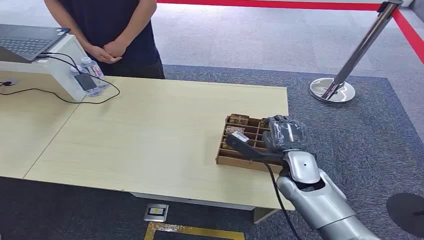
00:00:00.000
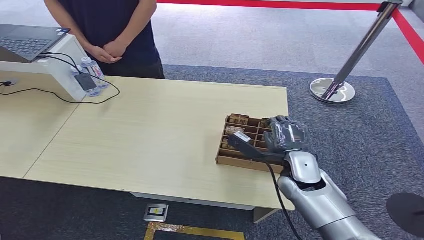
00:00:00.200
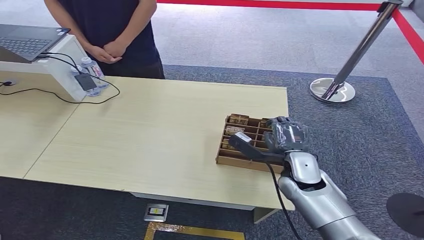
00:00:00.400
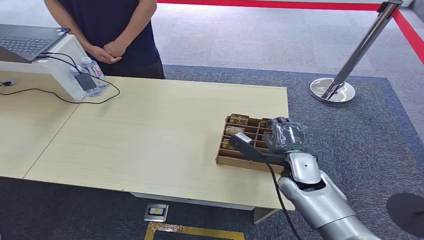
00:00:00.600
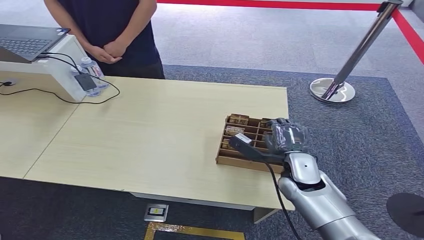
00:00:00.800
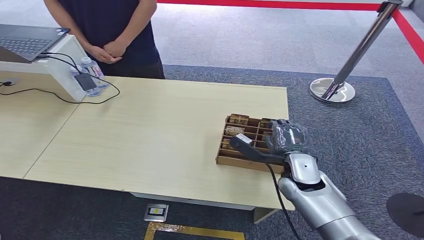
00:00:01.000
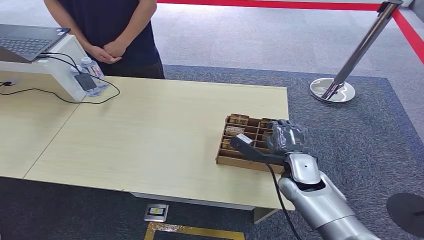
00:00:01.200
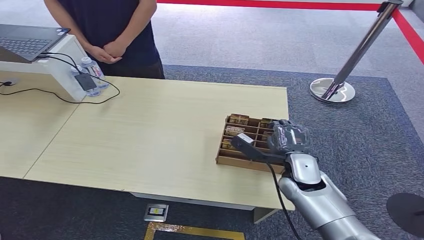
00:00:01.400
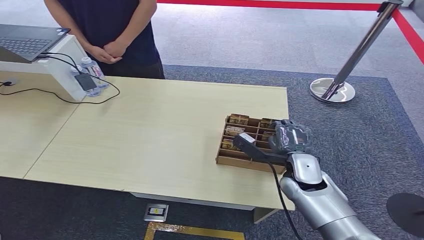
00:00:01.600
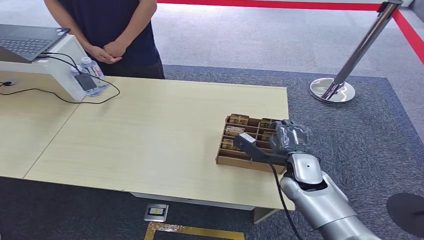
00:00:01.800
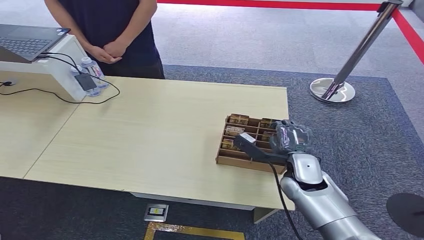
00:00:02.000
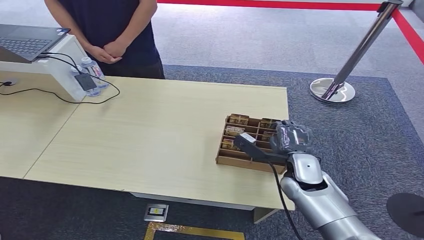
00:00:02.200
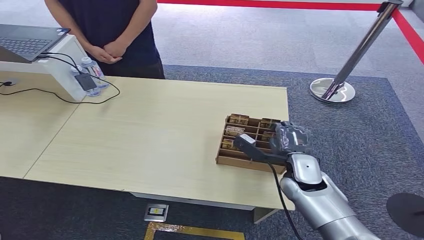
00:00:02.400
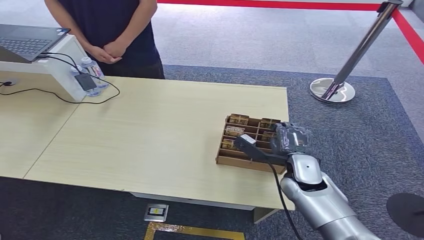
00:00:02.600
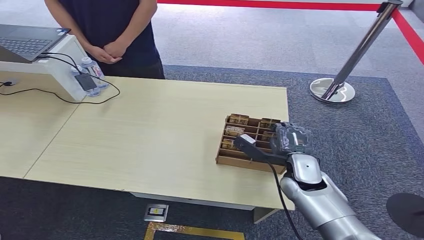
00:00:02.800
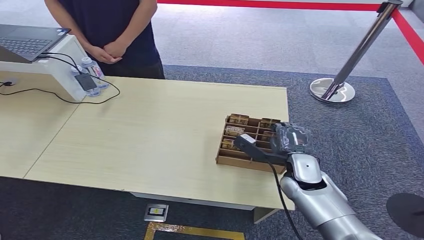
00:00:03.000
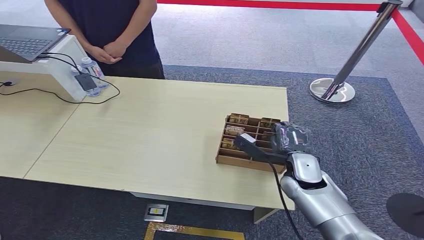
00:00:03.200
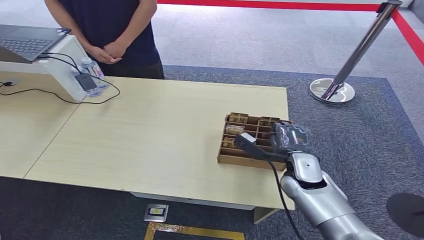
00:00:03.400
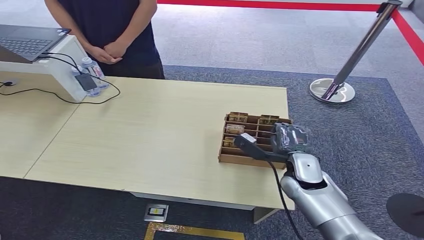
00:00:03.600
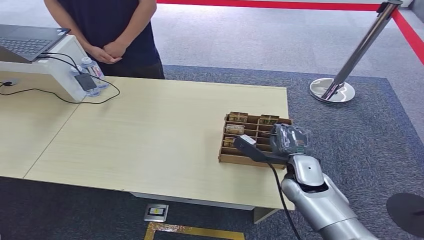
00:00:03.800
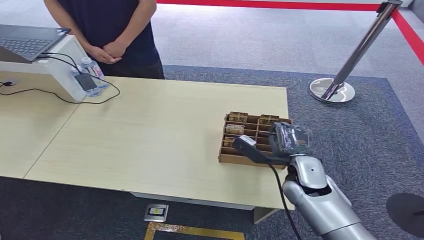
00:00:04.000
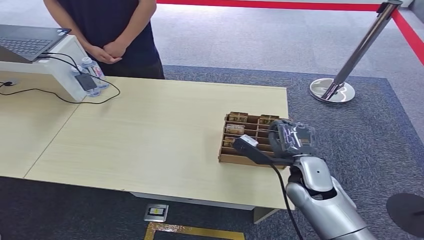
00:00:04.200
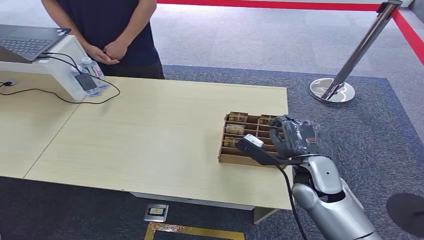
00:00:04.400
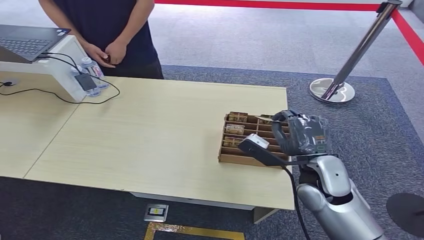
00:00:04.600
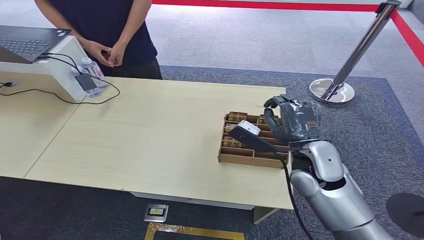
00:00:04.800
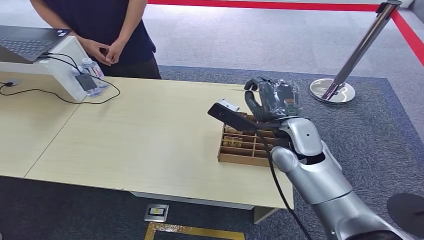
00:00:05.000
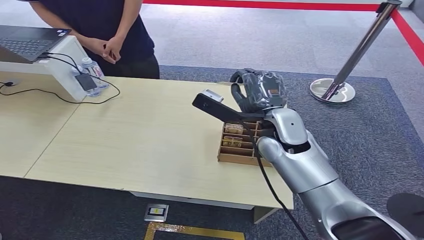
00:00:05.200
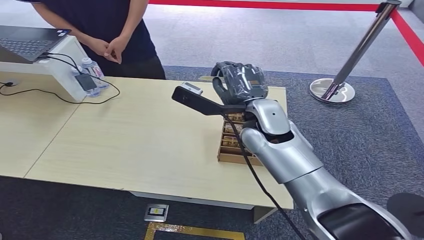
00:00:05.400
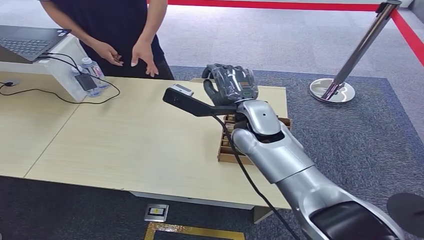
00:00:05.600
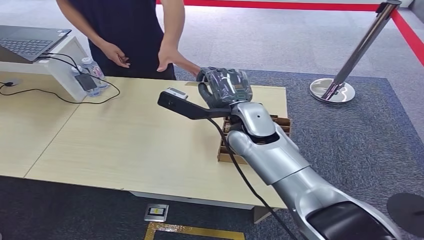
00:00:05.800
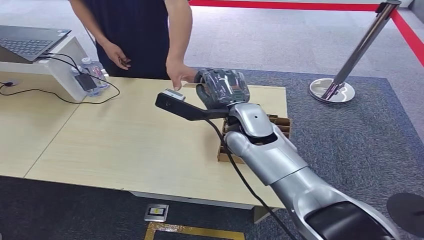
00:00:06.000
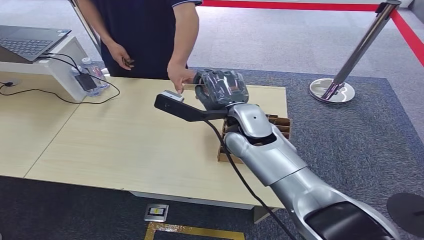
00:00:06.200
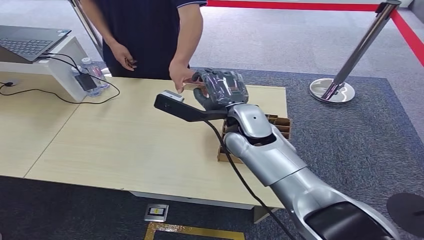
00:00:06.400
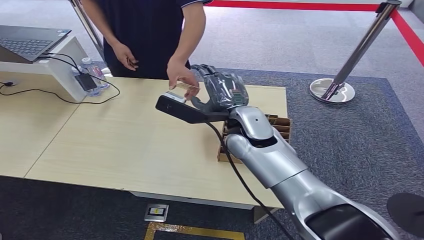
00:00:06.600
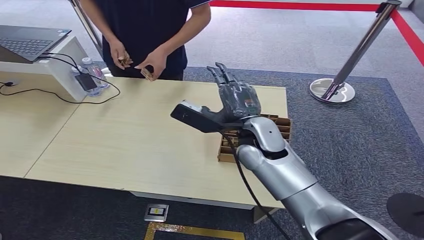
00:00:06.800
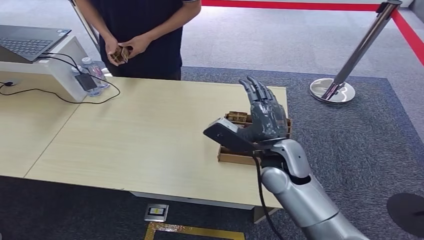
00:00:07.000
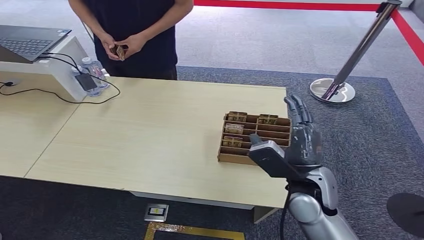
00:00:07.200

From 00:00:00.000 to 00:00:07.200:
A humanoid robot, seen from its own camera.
Step, from 00:00:00.000 to 00:00:05.200: Pick up the key card from the card box.
Step, from 00:00:05.400 to 00:00:07.200: Hand the key card to the target.
From 00:00:01.400 to 00:00:02.800: Both hands stay about where they are.
From 00:00:02.800 to 00:00:04.400: The right hand ends up approximately 5 cm from where it was.
From 00:00:04.400 to 00:00:05.800: The right hand travels to the left, upward and forward by about 20 cm.
From 00:00:05.800 to 00:00:07.200: The right hand goes some 20 cm backward, to the right and downward.

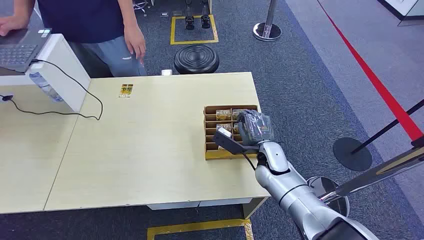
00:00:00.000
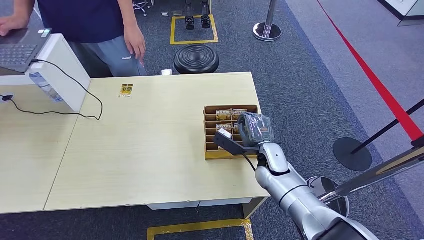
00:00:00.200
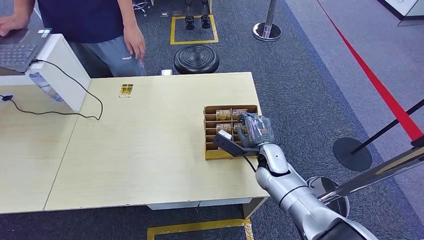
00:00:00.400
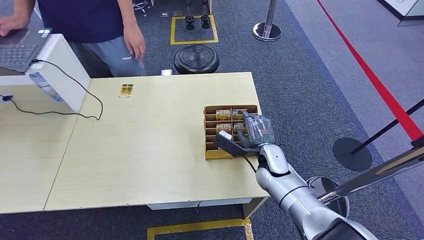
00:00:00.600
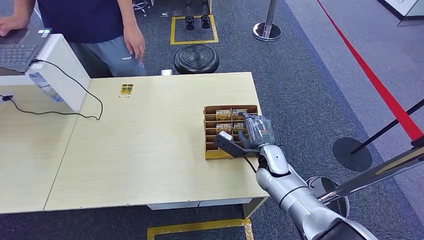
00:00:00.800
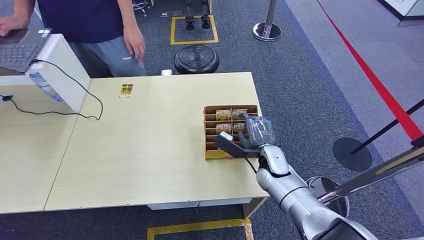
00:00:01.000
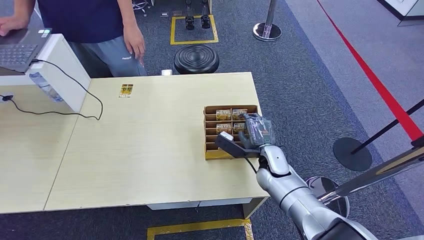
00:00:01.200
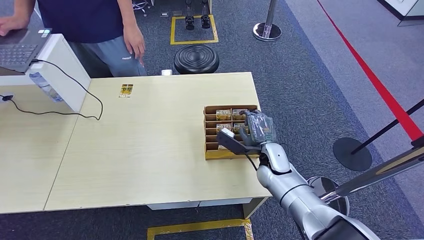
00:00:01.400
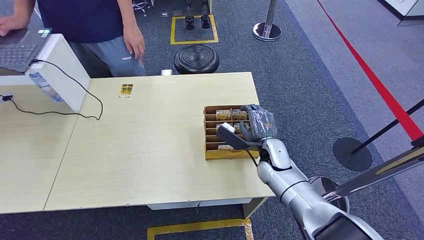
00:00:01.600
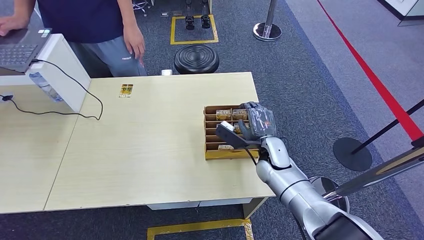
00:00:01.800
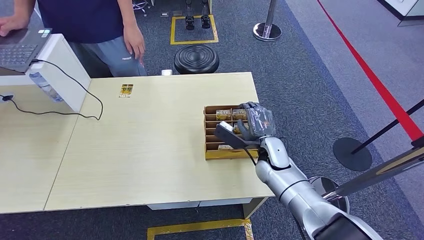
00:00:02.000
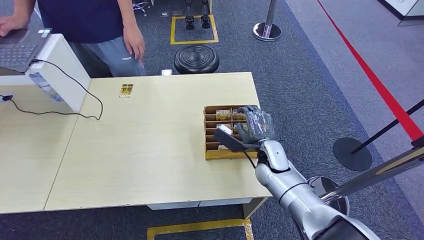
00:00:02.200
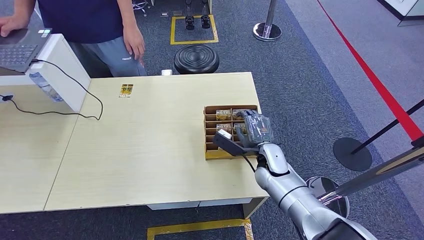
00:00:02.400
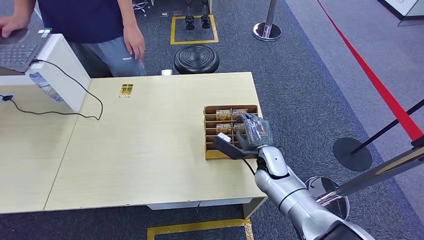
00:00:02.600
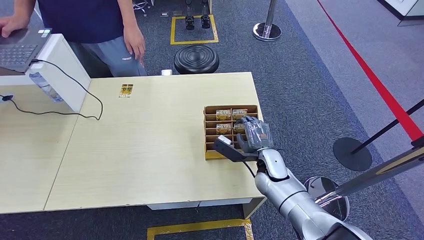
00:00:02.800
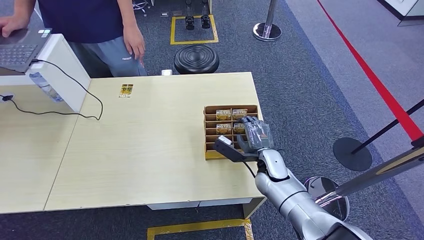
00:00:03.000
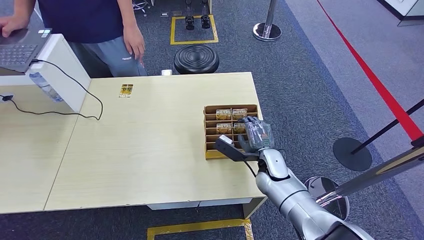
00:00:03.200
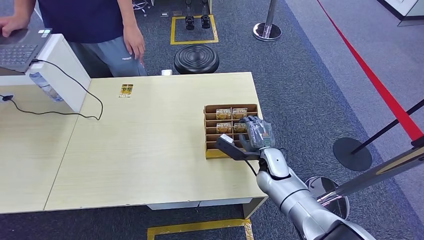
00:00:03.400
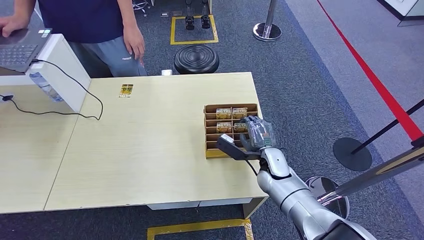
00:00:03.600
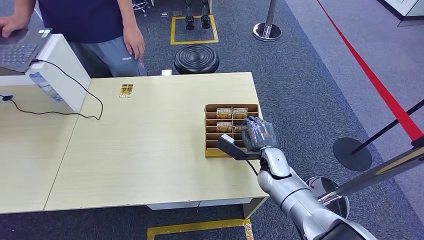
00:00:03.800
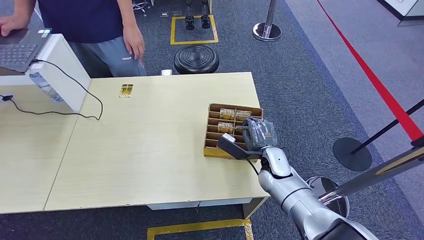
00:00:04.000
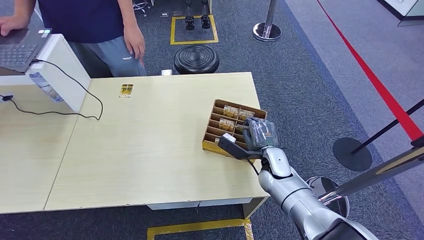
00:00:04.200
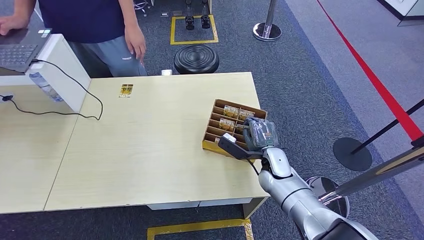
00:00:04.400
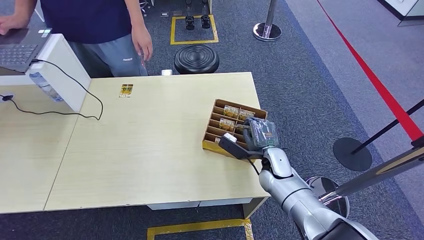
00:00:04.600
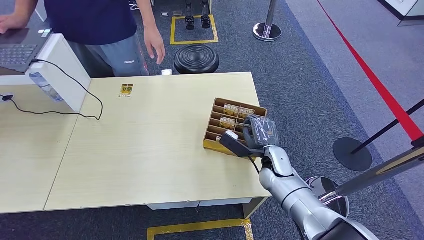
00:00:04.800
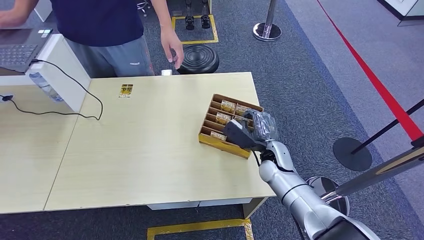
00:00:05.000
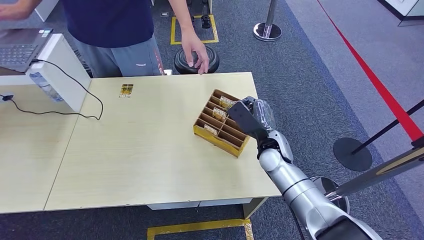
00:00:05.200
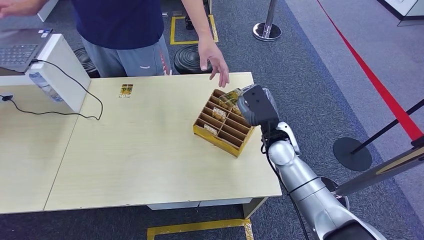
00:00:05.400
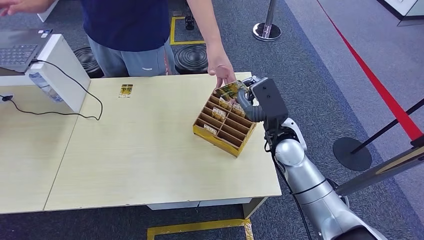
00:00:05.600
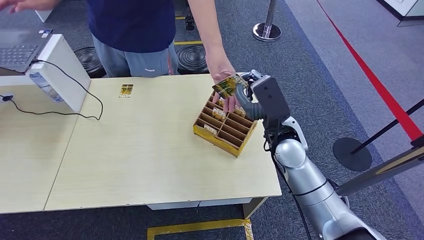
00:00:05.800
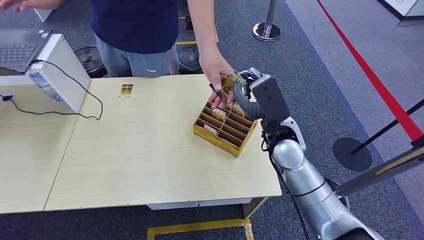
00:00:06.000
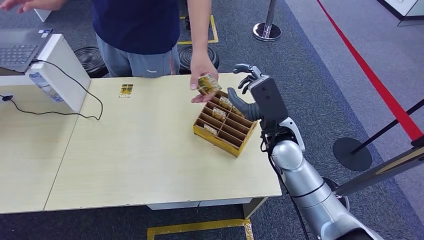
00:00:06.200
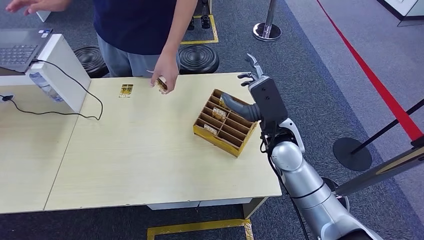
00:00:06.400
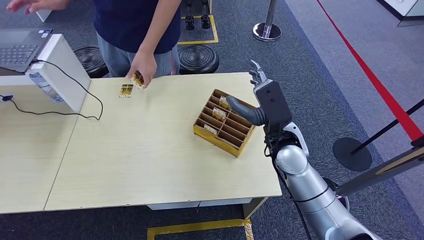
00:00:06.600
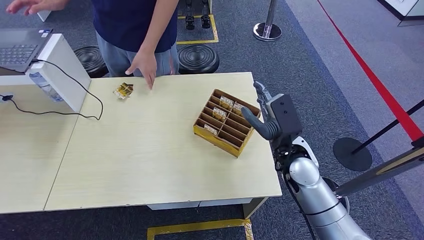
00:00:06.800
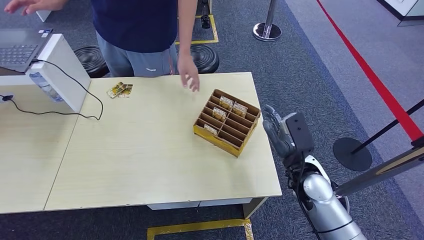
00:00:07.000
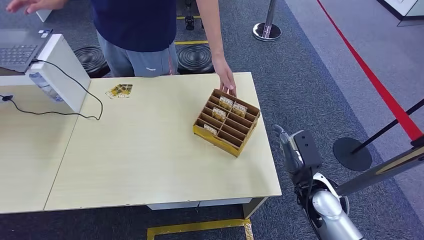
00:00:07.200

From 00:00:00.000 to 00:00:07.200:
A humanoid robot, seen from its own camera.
Step, from 00:00:00.000 to 00:00:04.600: Pick up the key card from the card box.
Step, from 00:00:04.800 to 00:00:07.000: Hand the key card to the target.
From 00:00:01.400 to 00:00:04.400: Both hands stay put.
From 00:00:05.800 to 00:00:07.200: The right hand is displaced downward, backward and to the right by about 20 cm.

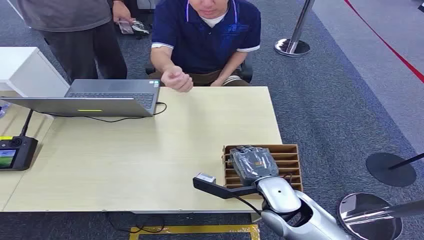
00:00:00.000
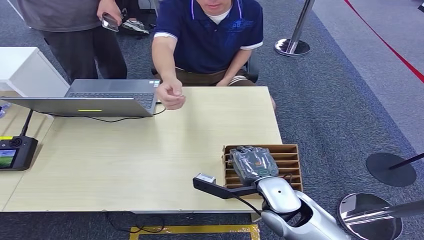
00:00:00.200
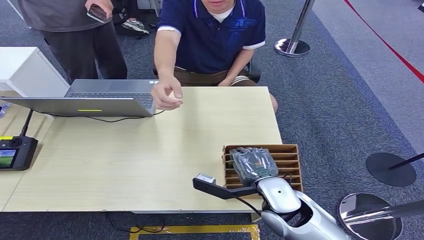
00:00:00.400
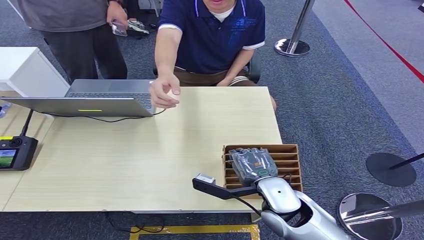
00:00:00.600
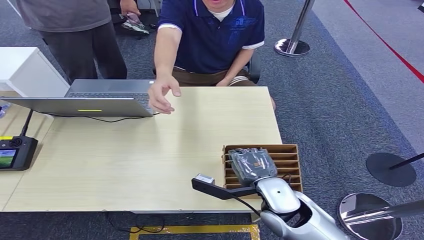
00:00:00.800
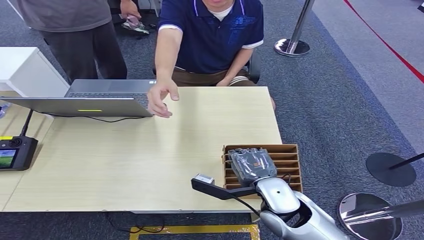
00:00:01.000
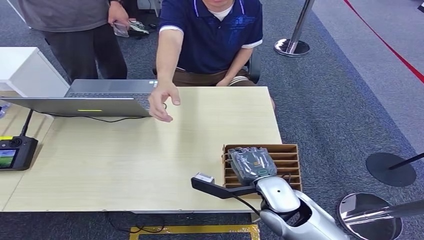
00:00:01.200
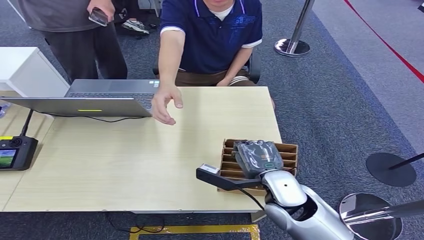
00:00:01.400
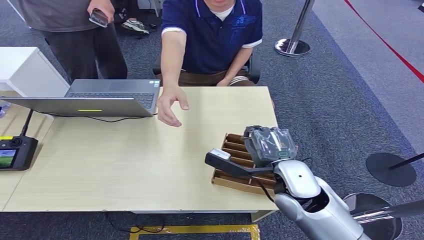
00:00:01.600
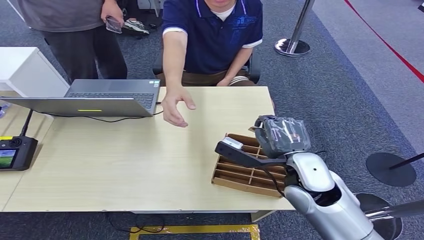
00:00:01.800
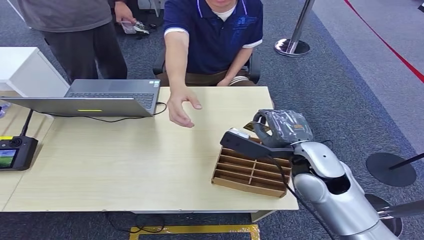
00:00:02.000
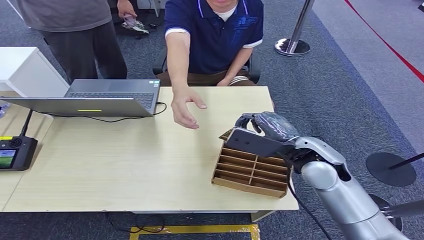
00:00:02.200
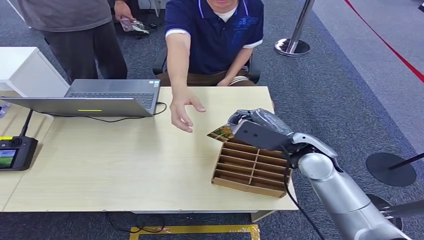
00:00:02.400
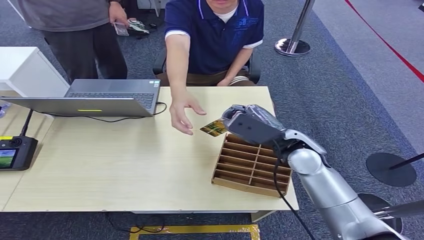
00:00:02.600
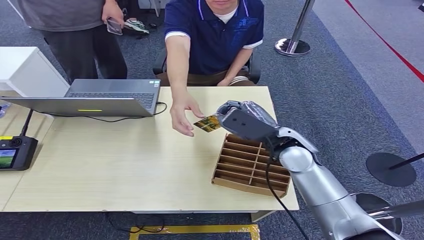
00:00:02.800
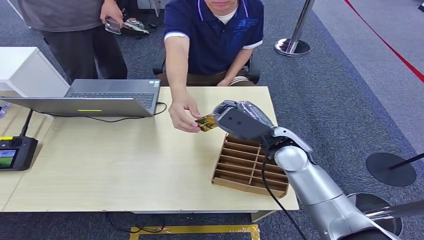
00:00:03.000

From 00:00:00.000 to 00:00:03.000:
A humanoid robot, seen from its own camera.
Step, from 00:00:00.000 to 00:00:01.800: Pick up the key card from the card box.
Step, from 00:00:02.000 to 00:00:03.000: Hand the key card to the target.
From 00:00:01.600 to 00:00:03.000: The right hand heads forward, covering roughly 10 cm.
